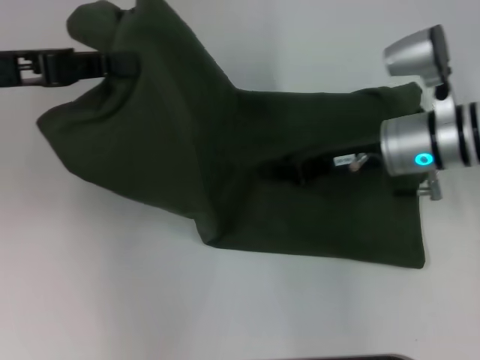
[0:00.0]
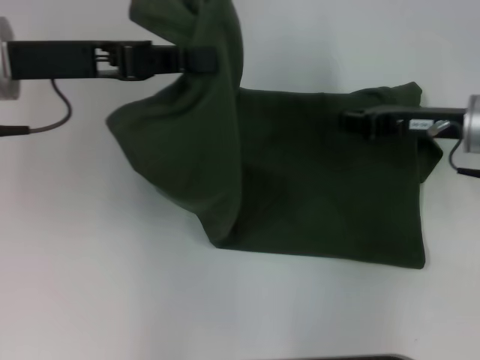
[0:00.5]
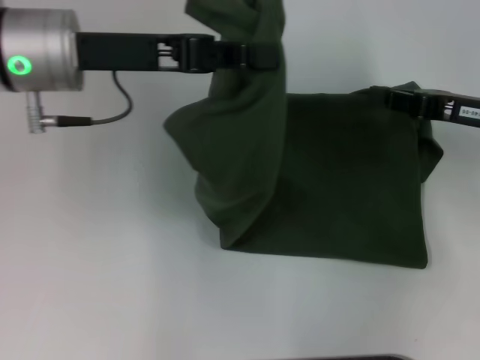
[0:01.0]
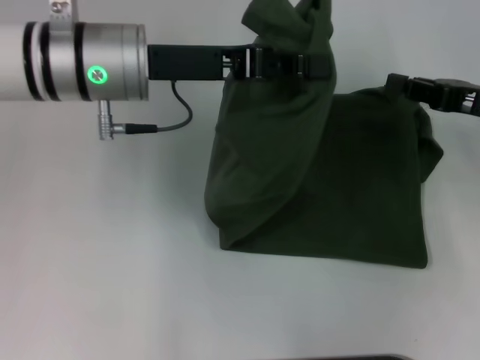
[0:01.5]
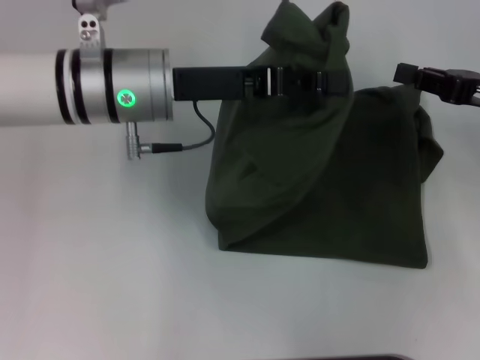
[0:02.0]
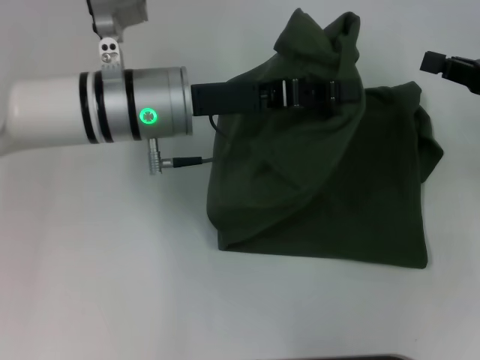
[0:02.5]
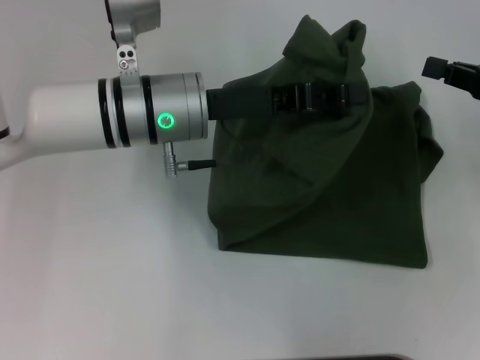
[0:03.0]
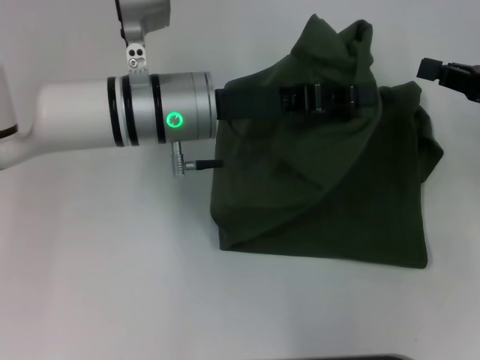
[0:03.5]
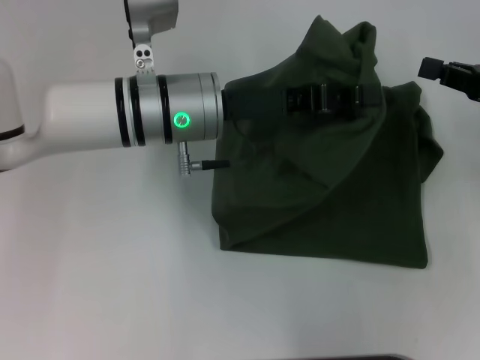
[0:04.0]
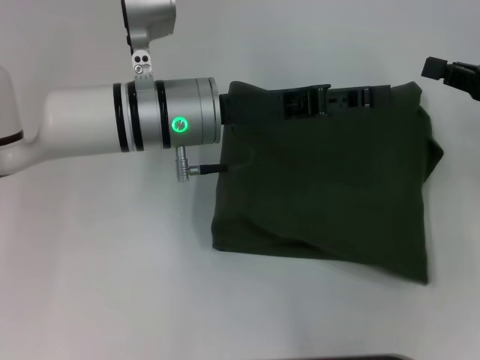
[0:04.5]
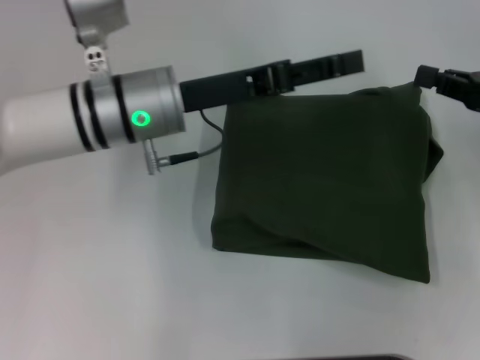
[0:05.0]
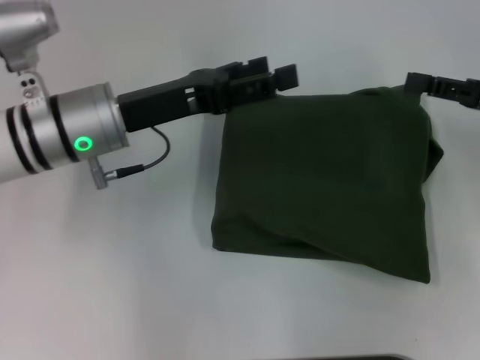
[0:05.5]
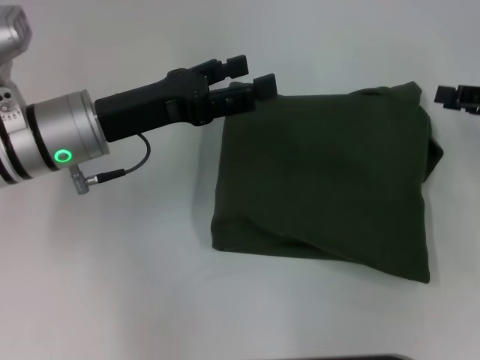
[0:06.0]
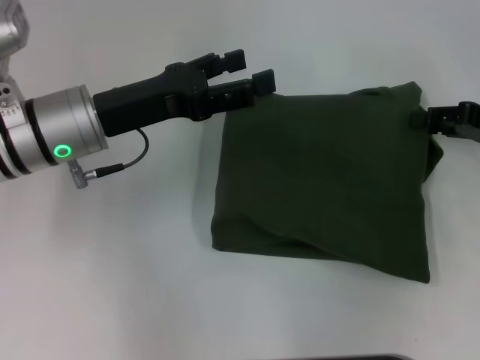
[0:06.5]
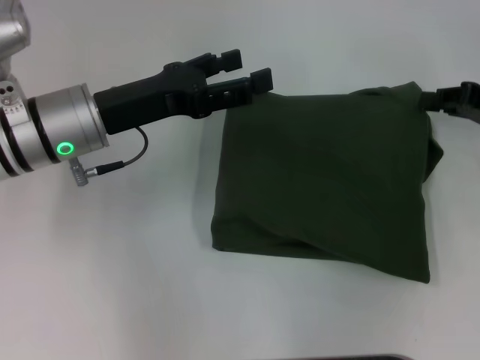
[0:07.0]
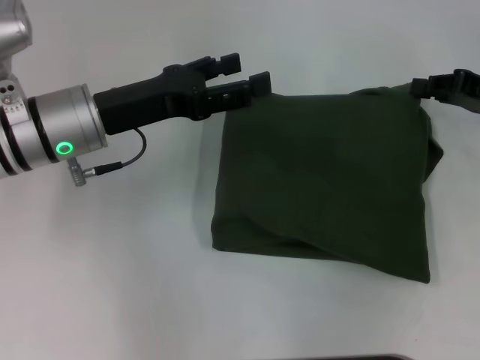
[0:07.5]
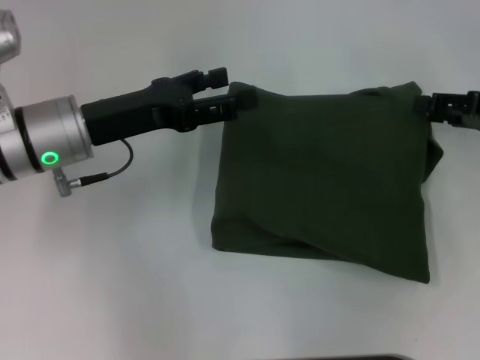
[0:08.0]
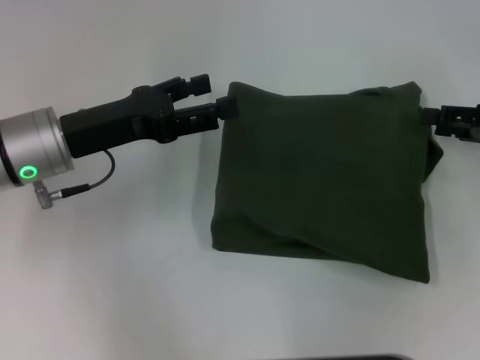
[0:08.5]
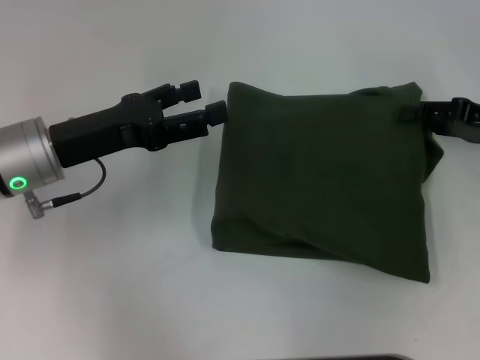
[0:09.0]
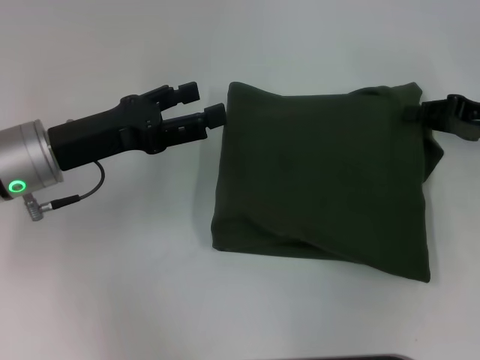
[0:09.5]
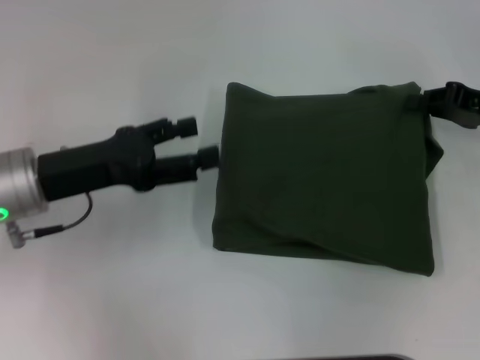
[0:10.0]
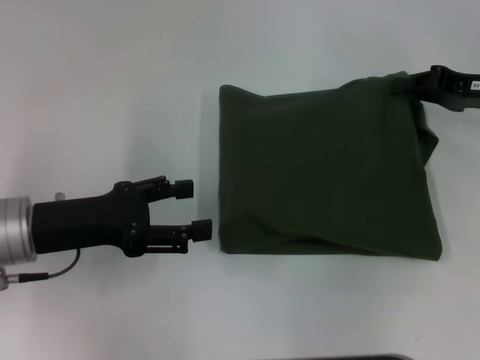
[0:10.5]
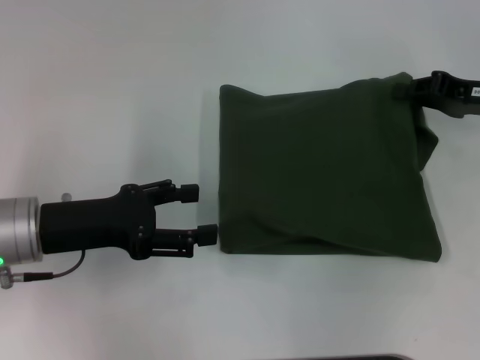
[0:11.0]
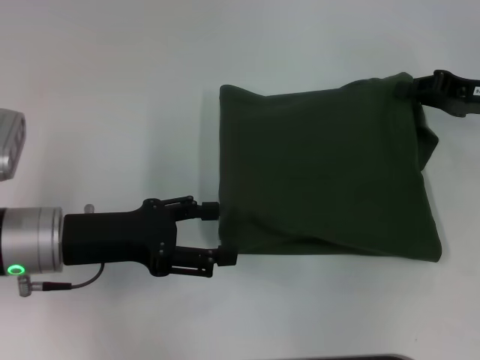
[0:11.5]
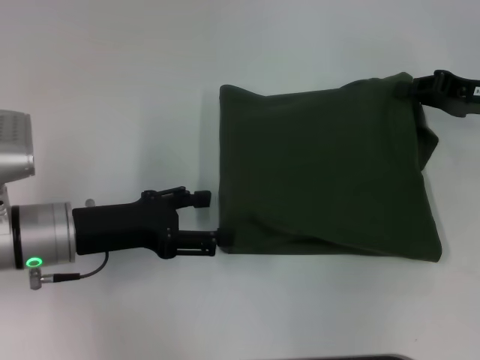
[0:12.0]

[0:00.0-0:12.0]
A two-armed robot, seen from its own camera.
Step, 0:00.0 to 0:04.5: Fold the clothes with your left hand.
0:00.0 to 0:02.0: Both grippers move to the right, some 15 cm.
0:02.0 to 0:04.0: There are only small adjustments of the grippers.
0:04.0 to 0:06.0: The right gripper opens its fingers. Meanwhile the left gripper heads to the left, covering roughly 10 cm, and opens up.
0:06.0 to 0:08.0: The right gripper closes and opens again.
0:08.0 to 0:10.0: The right gripper closes; the left gripper changes place by about 5 cm.
0:10.0 to 0:12.0: The grippers stay close to where they were, moving slightly.

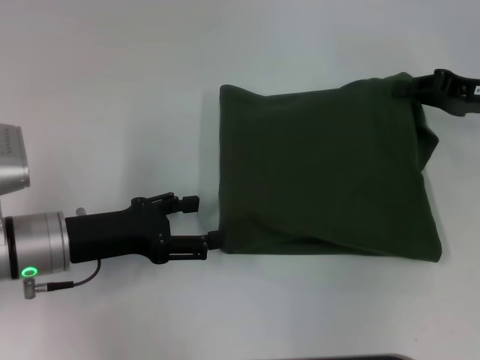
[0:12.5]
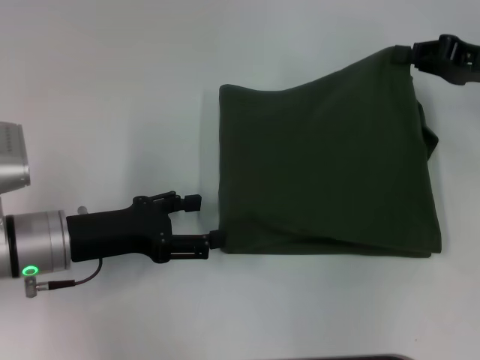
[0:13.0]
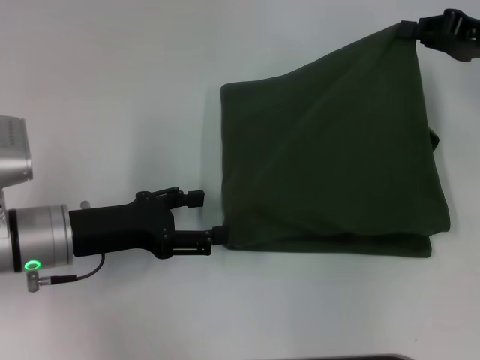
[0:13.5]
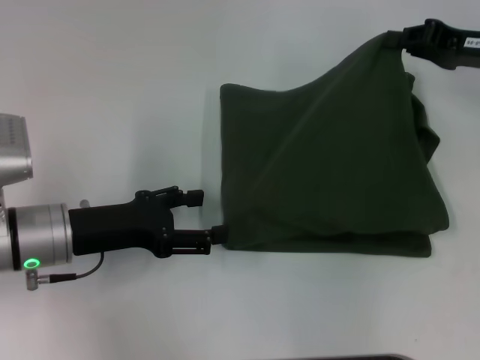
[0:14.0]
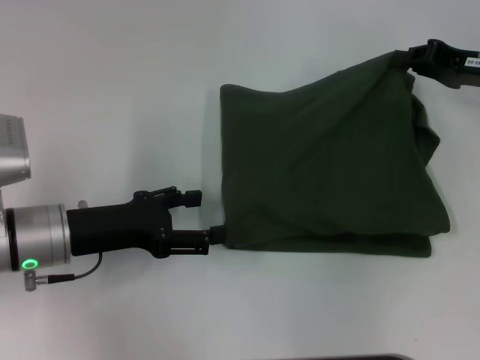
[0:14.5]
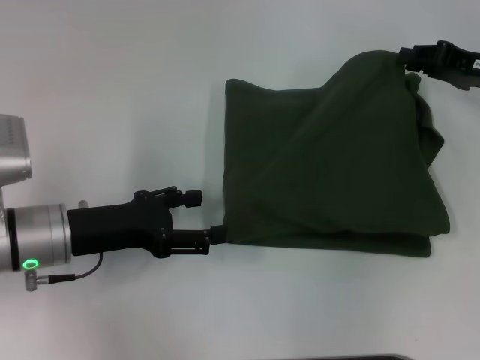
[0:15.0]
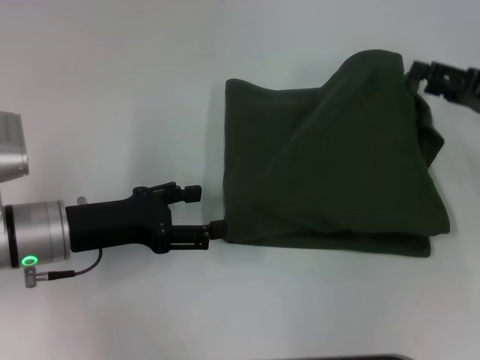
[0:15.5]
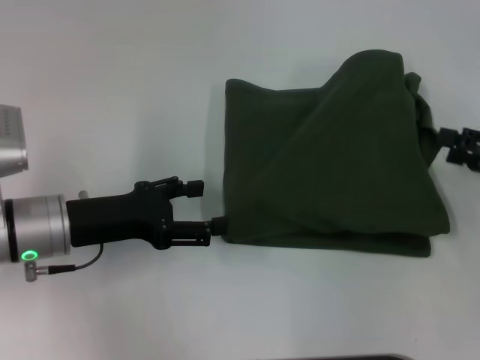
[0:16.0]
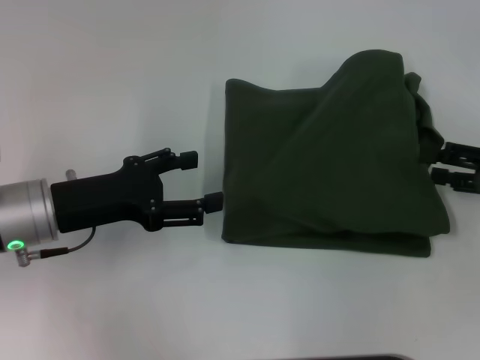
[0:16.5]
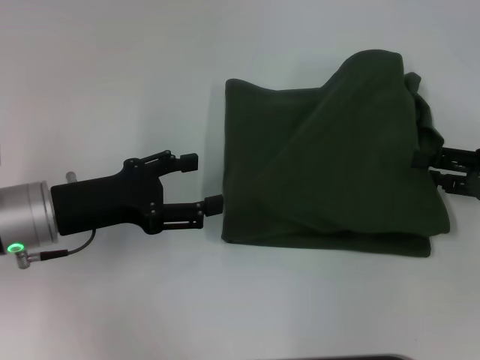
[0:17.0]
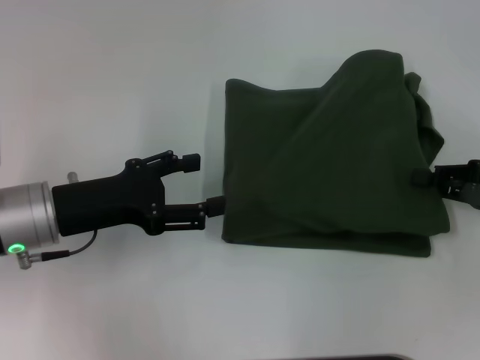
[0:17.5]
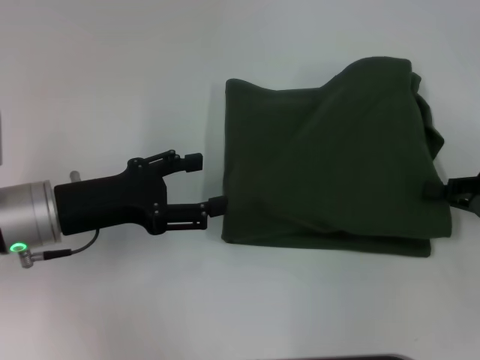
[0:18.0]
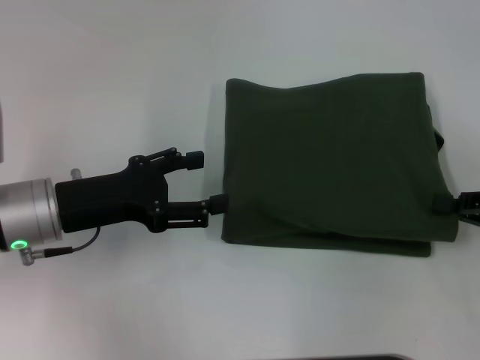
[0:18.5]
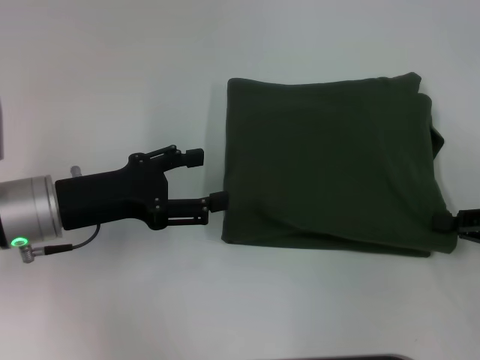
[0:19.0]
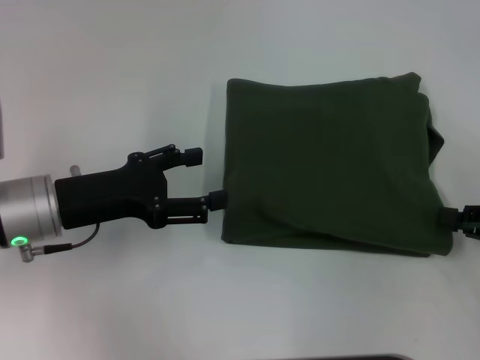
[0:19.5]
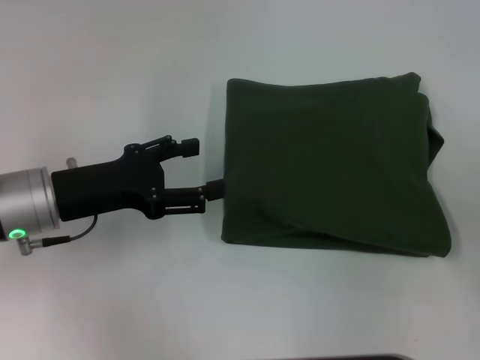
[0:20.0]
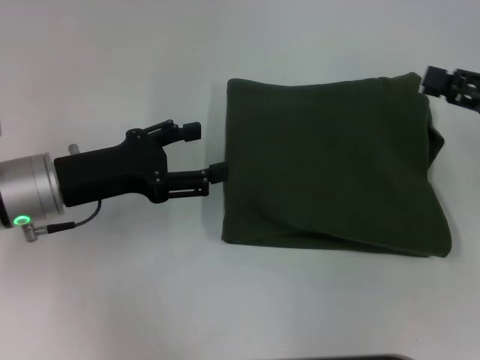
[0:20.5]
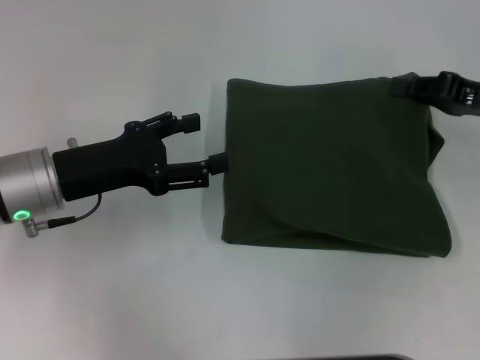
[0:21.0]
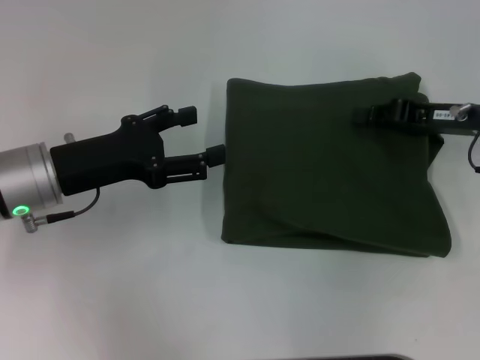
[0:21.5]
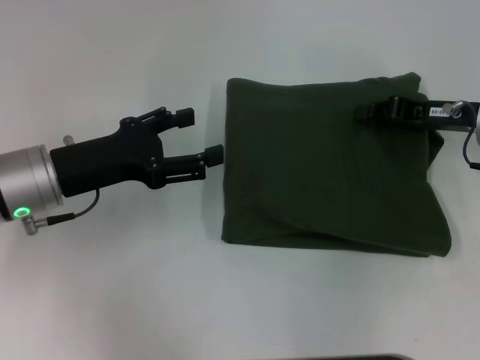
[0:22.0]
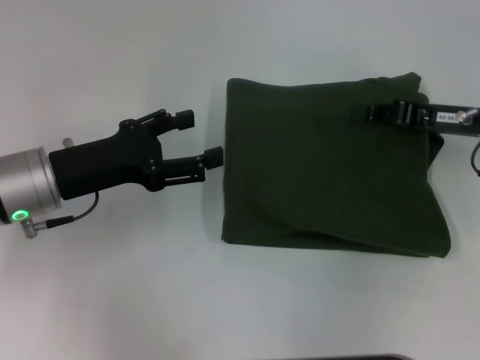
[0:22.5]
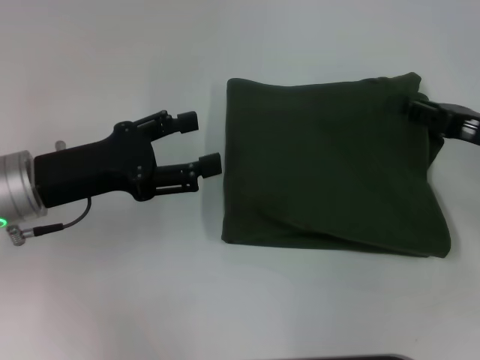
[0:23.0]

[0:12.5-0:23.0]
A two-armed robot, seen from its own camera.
0:12.5 to 0:14.5: The grippers move only a little.
0:14.5 to 0:16.5: The right gripper shifts about 10 cm backward, and opens.
0:16.5 to 0:19.0: The right gripper closes.
0:19.0 to 0:21.0: The right gripper is displaced forward by approximately 10 cm, and opens, then closes once more.
0:21.0 to 0:23.0: The grippers stay close to where they were, moving slightly.

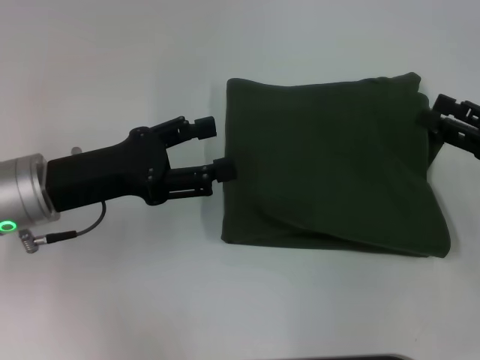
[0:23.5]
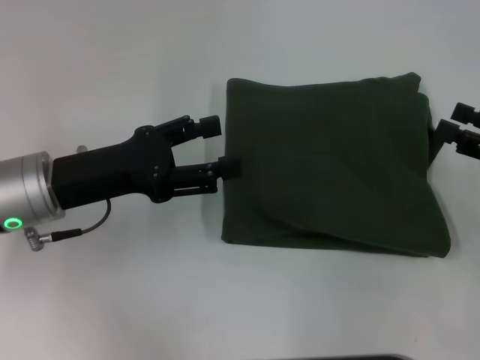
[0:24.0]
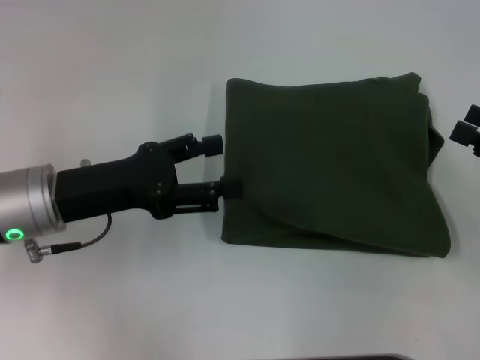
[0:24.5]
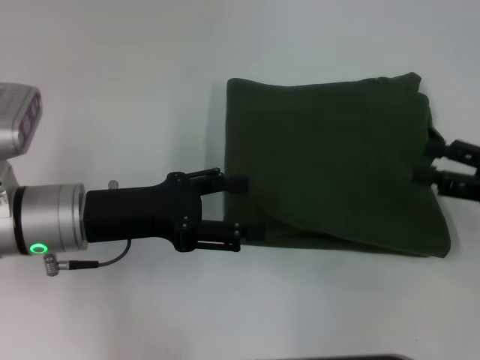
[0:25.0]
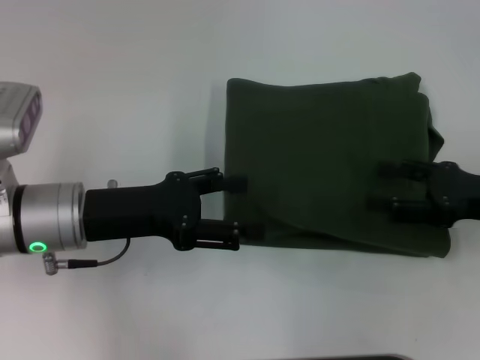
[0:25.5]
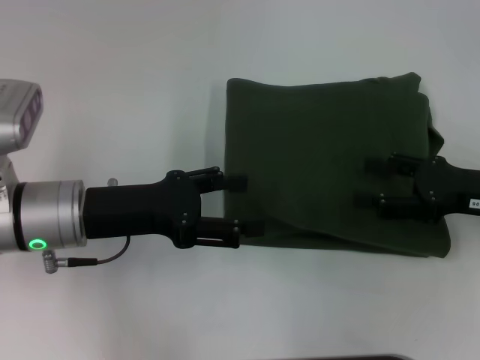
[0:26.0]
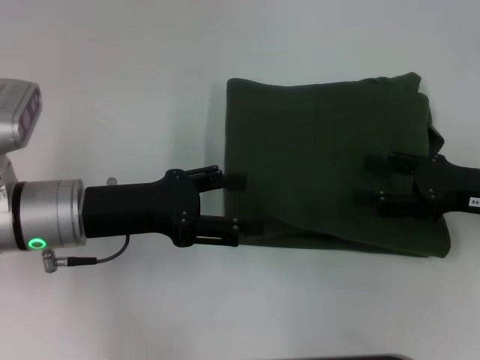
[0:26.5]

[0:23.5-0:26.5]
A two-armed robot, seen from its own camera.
0:23.5 to 0:25.0: The right gripper opens its fingers.
0:25.0 to 0:26.5: The right gripper changes place by approximately 5 cm.
